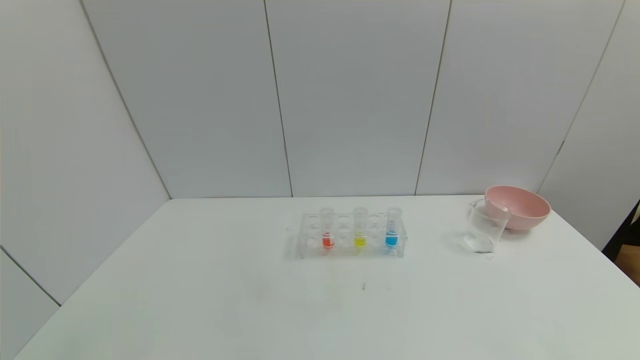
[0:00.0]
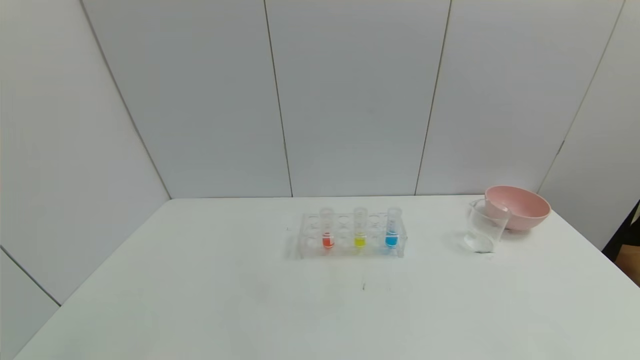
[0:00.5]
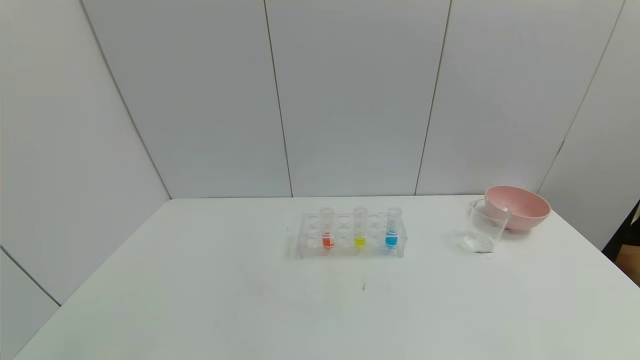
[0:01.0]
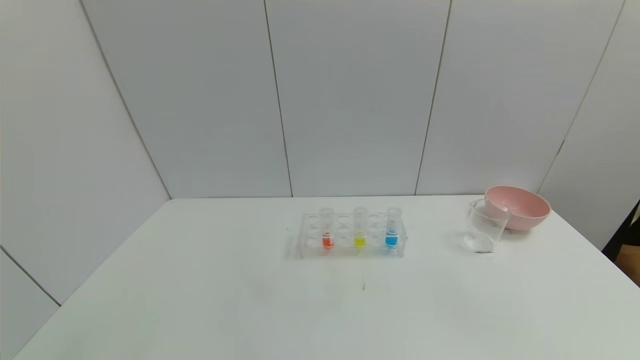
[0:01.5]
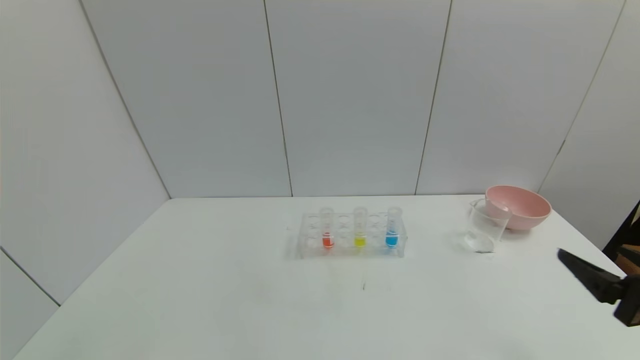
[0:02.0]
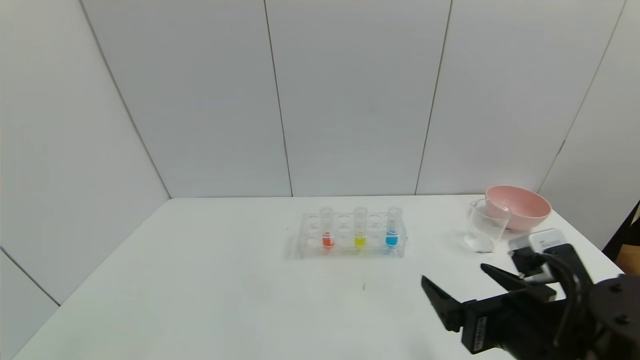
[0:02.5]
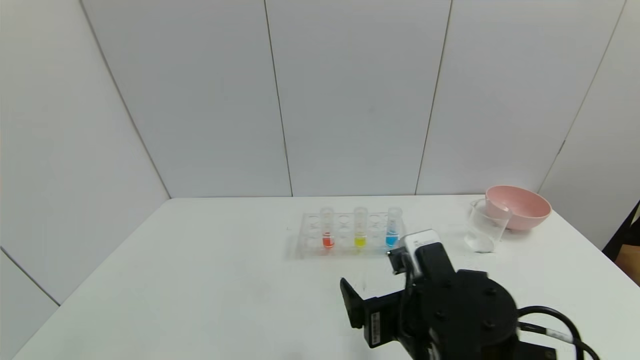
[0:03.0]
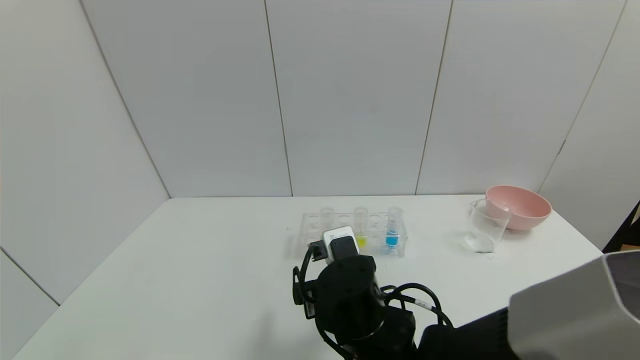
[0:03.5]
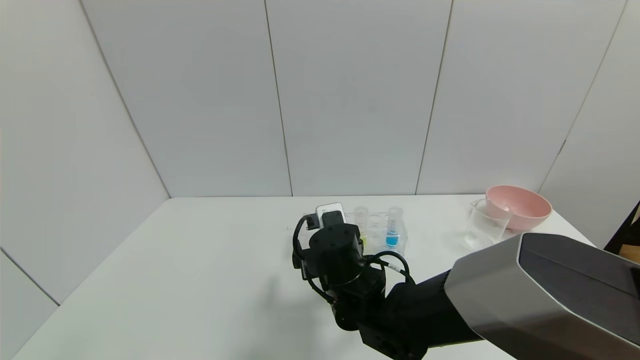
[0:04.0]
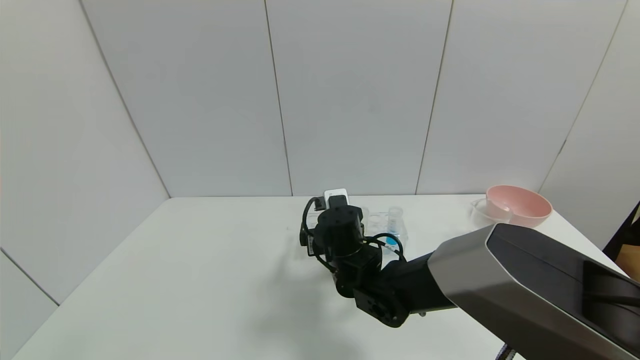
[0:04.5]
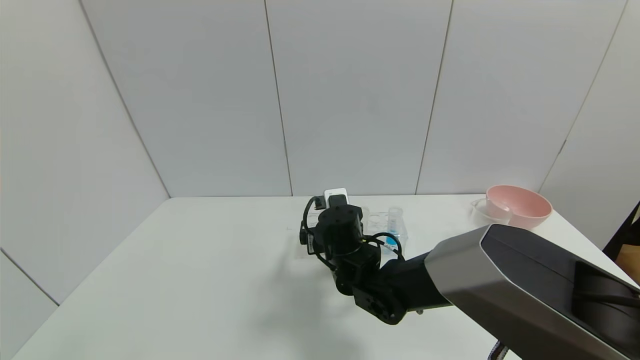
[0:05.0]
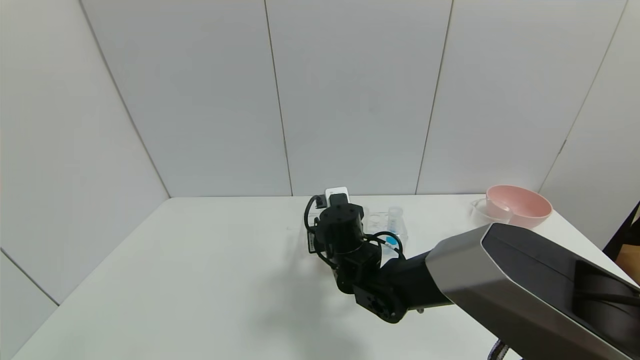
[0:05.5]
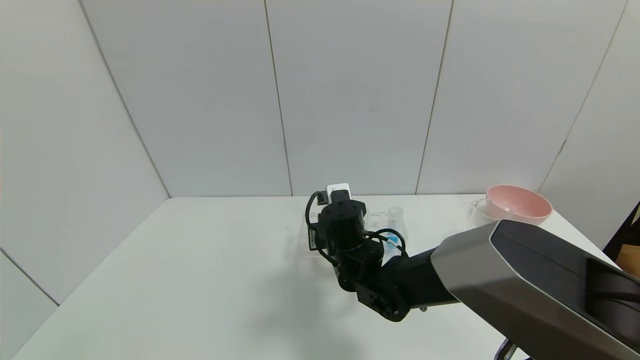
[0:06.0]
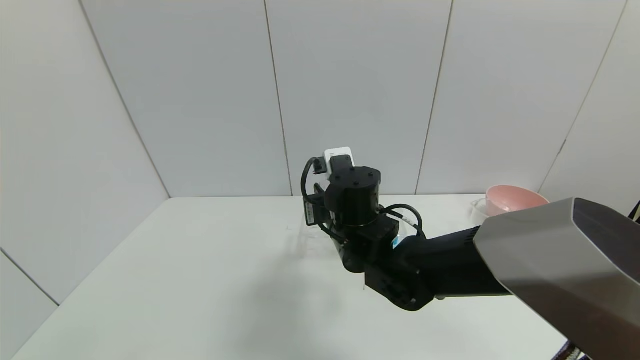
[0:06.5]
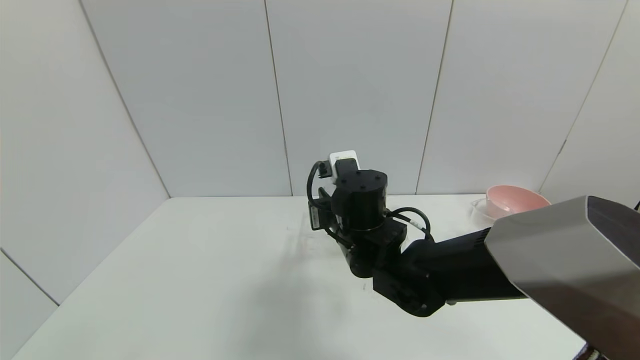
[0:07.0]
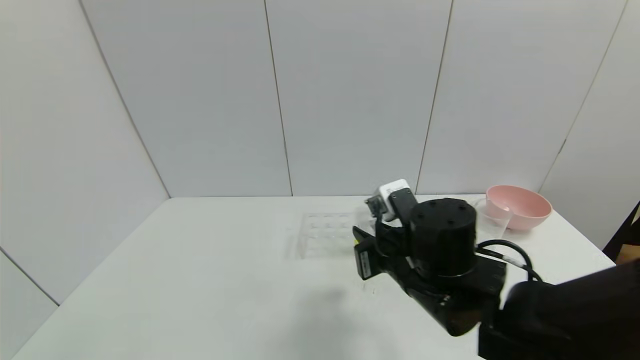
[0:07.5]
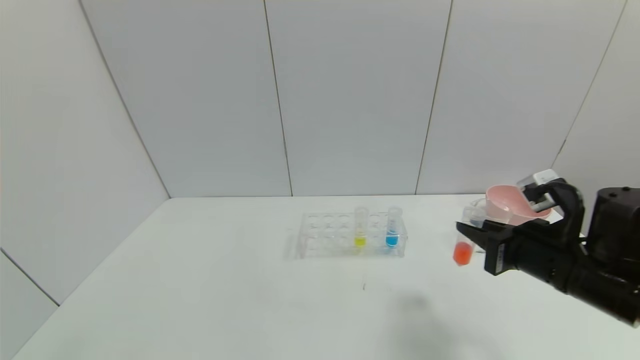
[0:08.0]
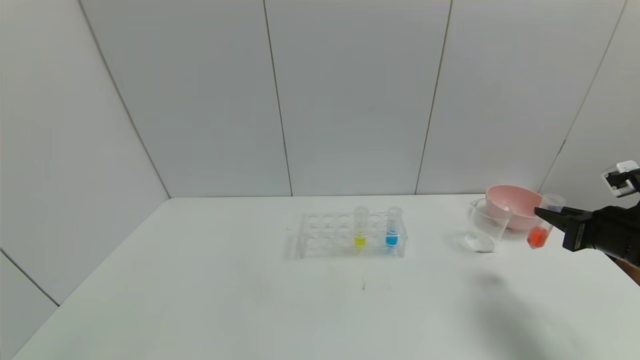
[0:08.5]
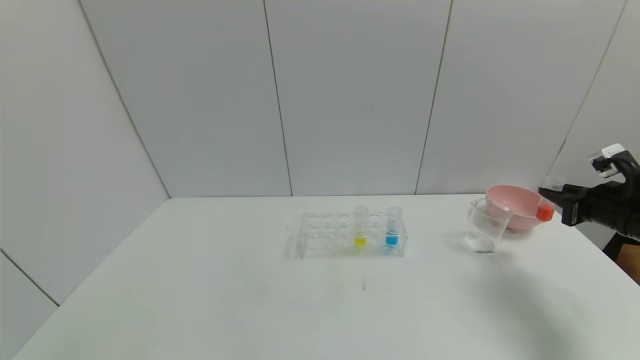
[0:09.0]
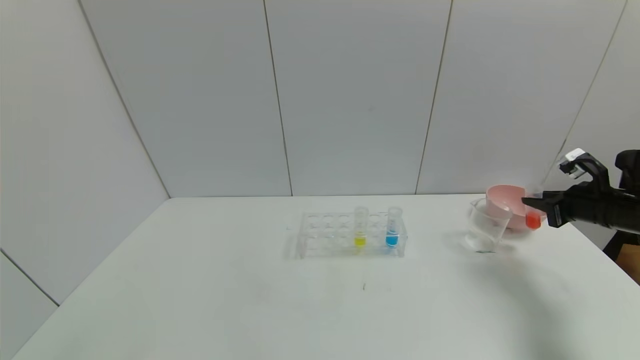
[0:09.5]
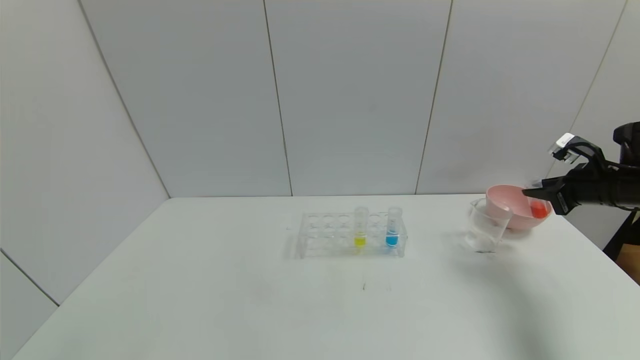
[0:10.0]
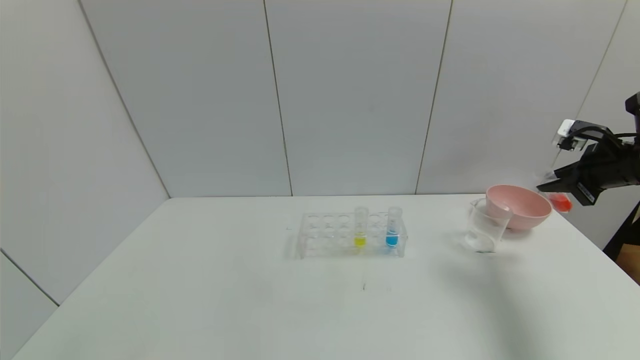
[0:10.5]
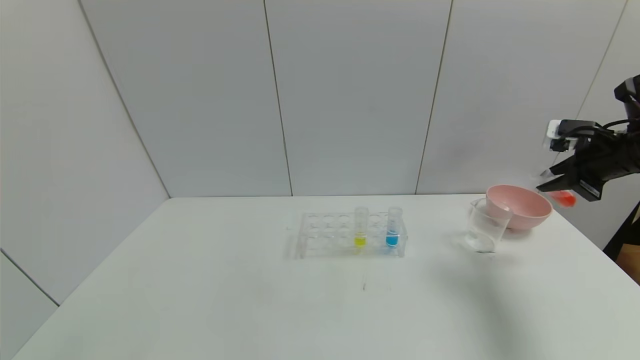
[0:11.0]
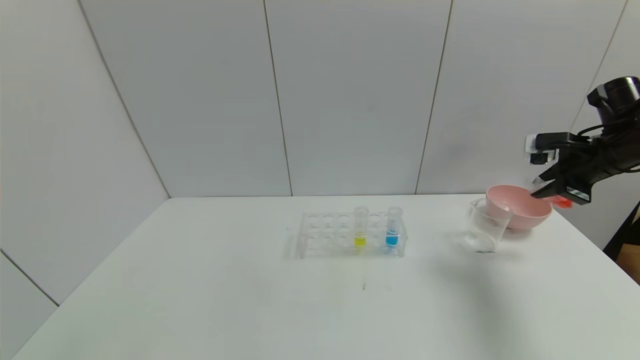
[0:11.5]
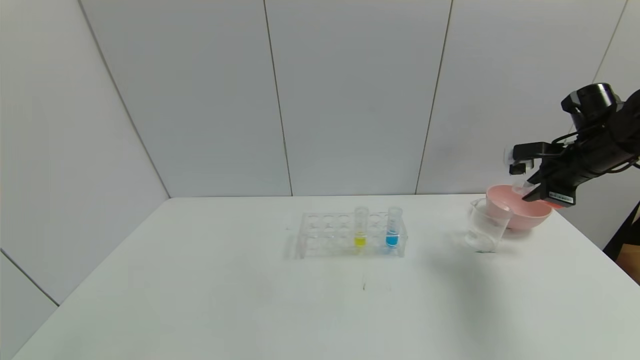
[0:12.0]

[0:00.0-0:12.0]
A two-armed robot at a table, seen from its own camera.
Task of the whole recording: pick up the test tube with red pigment and the test tube with blue pigment by grippers and pour them into the container.
Step, 0:00.0 to 0:05.5: Grasp the red reagent with the right gripper.
0:00.0 to 0:02.0: The right gripper heads forward and upward, covering approximately 20 cm.
0:02.0 to 0:04.0: The right gripper goes about 35 cm to the left and forward.
0:04.0 to 0:06.0: The right gripper heads forward, covering approximately 5 cm, and closes up.
0:06.0 to 0:08.0: The right gripper goes approximately 30 cm to the right and backward.
0:08.0 to 0:10.0: The right gripper moves to the right and forward, approximately 20 cm.
0:10.0 to 0:12.0: The right gripper goes some 5 cm to the left.

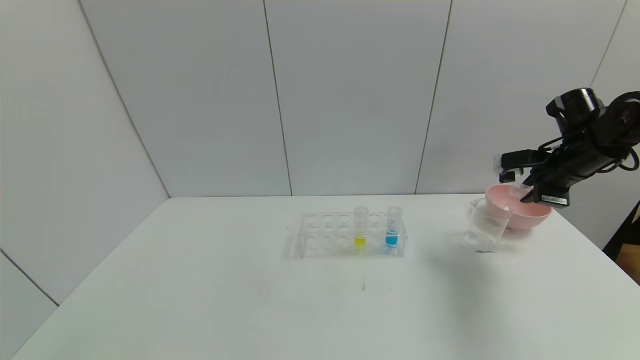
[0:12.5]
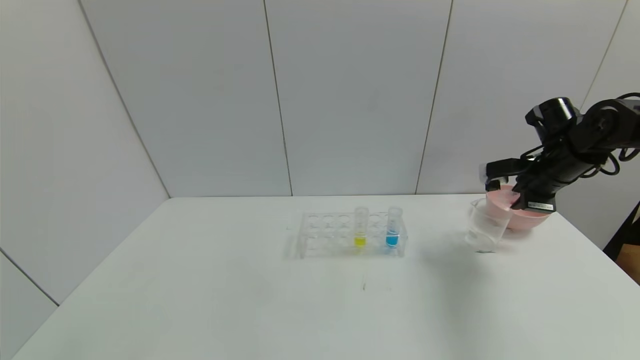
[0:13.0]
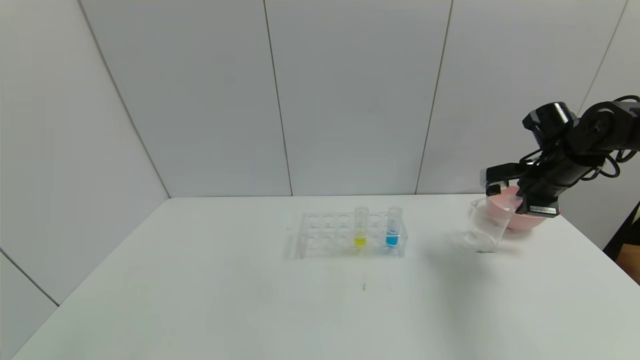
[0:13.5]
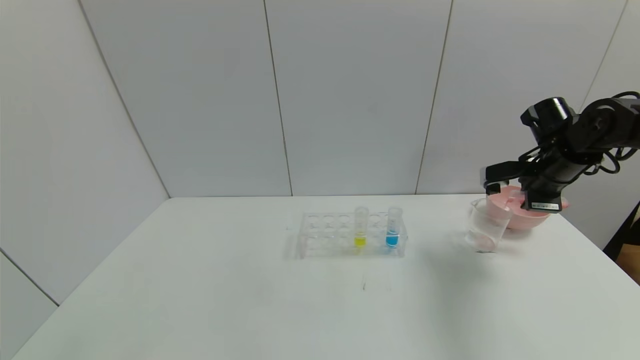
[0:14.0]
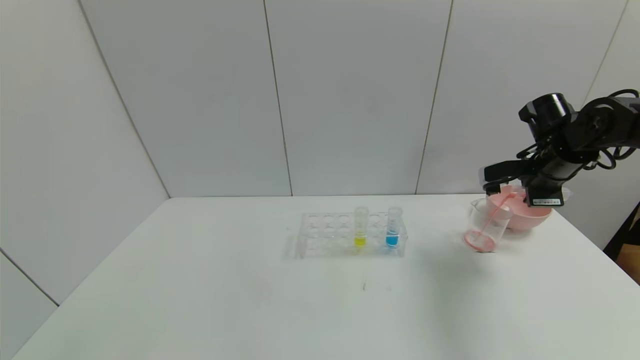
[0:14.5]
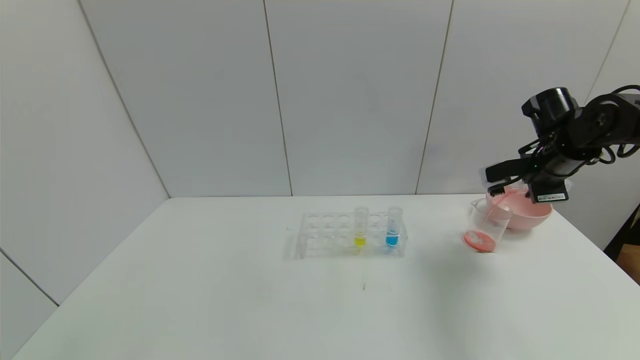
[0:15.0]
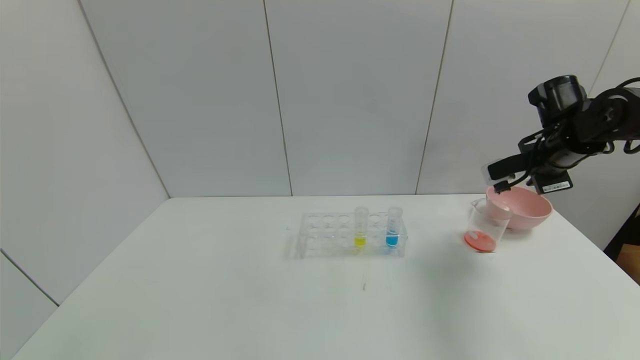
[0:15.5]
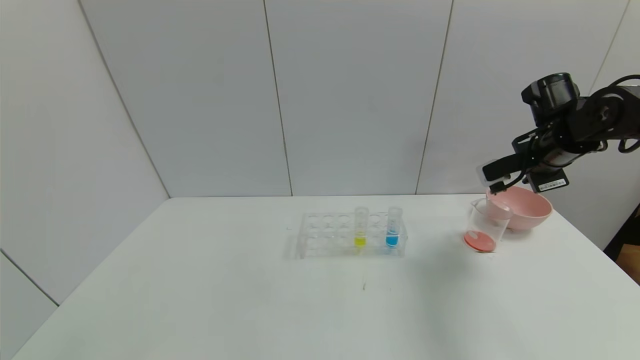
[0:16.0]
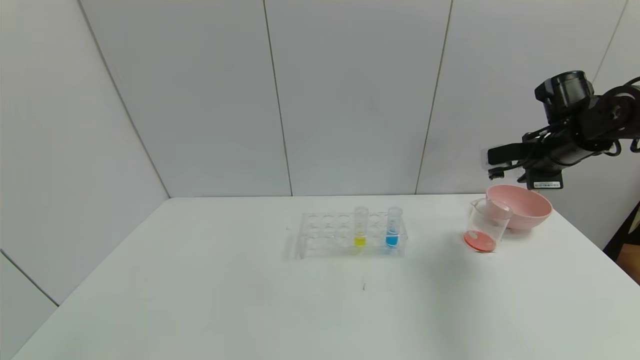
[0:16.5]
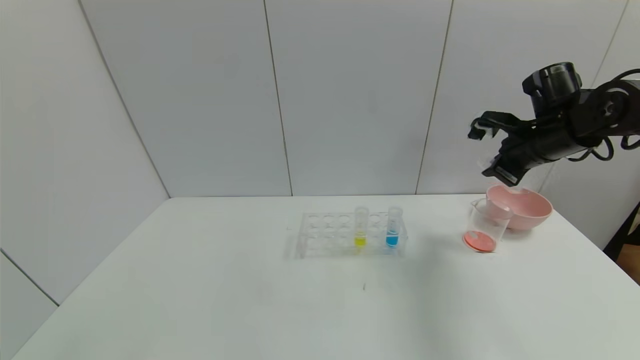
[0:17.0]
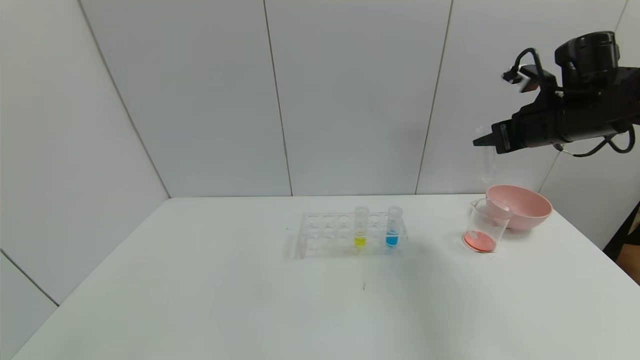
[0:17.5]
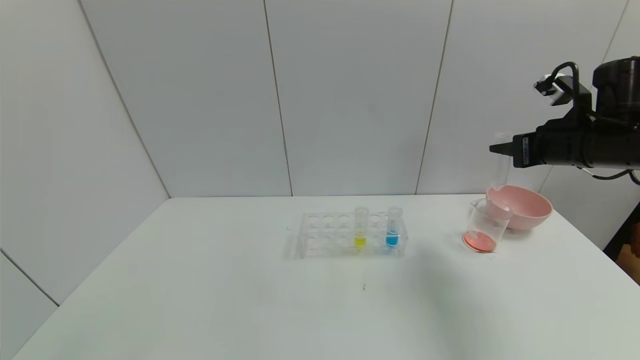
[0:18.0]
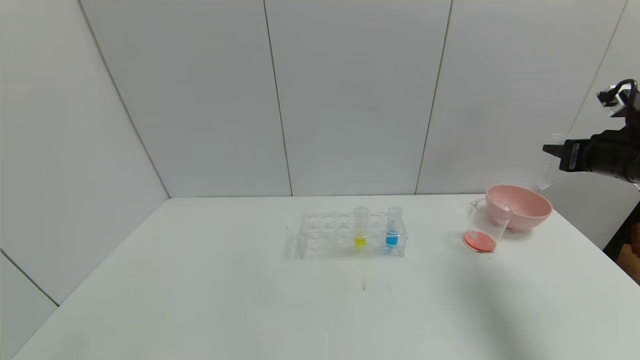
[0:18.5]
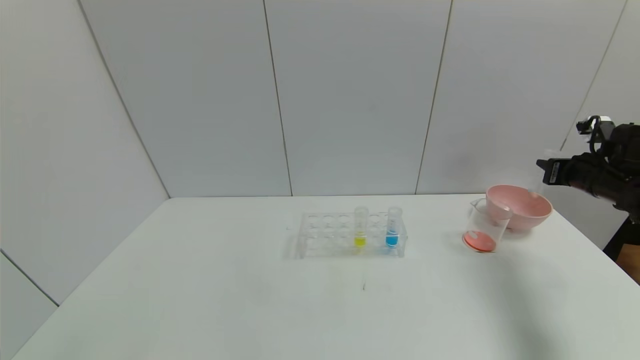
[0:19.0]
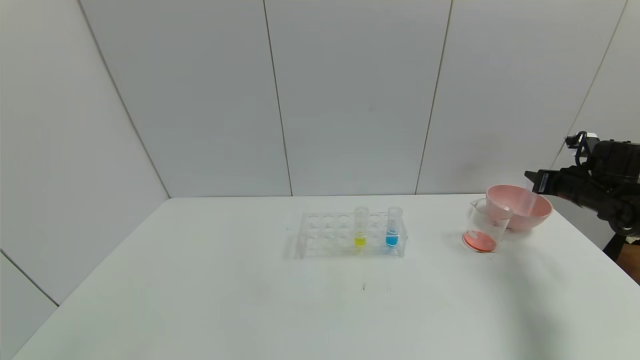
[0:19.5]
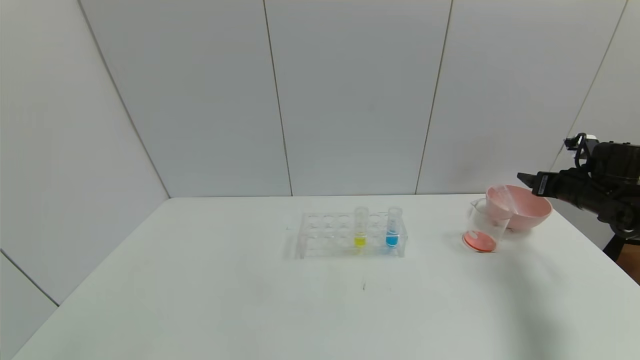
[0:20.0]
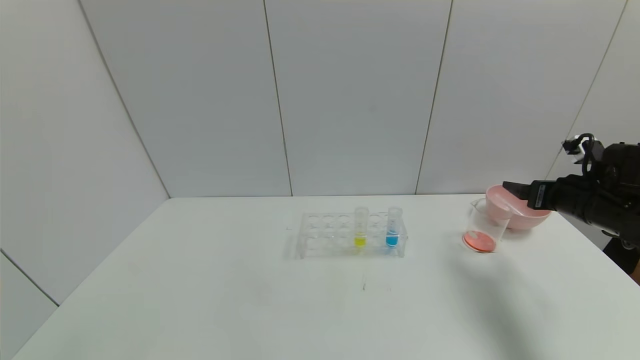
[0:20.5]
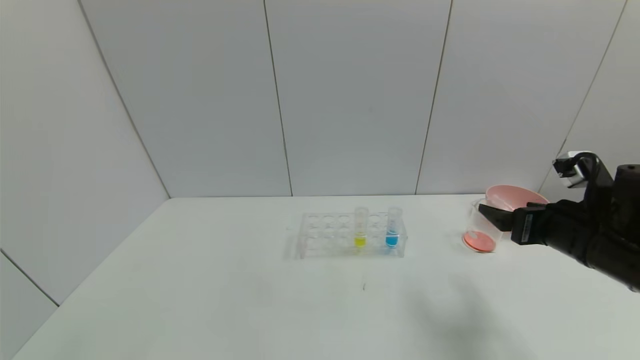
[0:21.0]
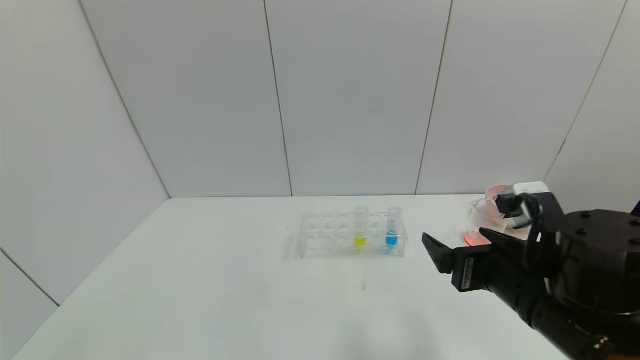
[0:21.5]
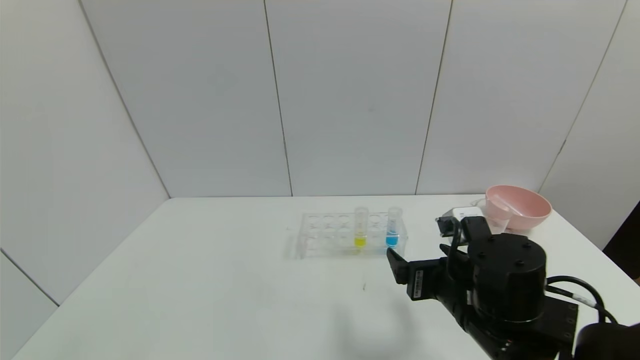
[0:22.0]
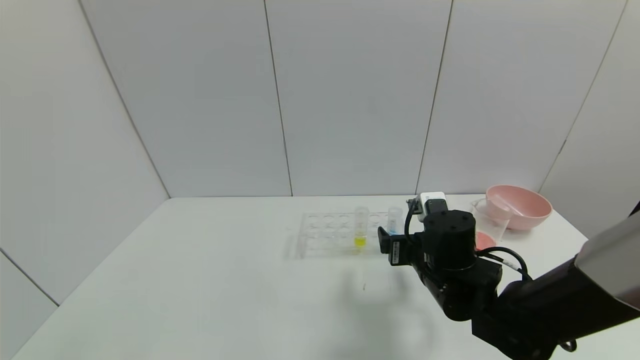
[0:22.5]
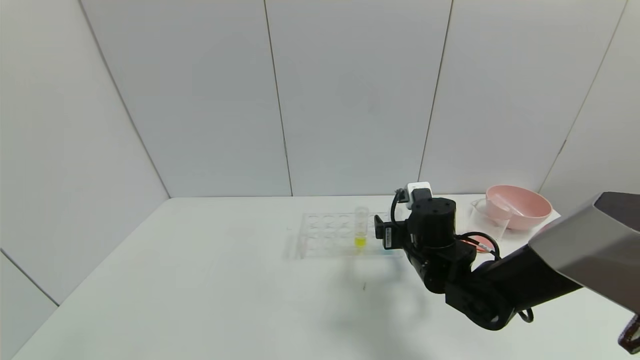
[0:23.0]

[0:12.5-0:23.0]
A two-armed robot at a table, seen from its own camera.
Task of the whole recording: pick up the test tube with red pigment and the test tube with blue pigment by grippers and pour them into the container.
Step, 0:12.5 to 0:15.0: Pour the red reagent into the graduated cylinder with the right gripper.
Step, 0:15.5 to 0:20.0: Place the test tube into the bowl with the right gripper.
0:12.5 to 0:14.5: The grippers make only small movements.
0:14.5 to 0:16.5: The grippers move only a little.
0:16.5 to 0:19.0: The right gripper moves to the right and downward, roughly 10 cm.
0:19.0 to 0:21.0: The right gripper shifts about 20 cm to the left and backward, and opens up.
0:21.0 to 0:23.0: The right gripper moves to the left, downward and forward, roughly 20 cm.
